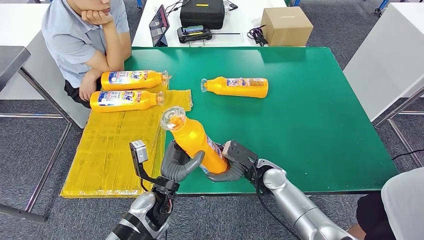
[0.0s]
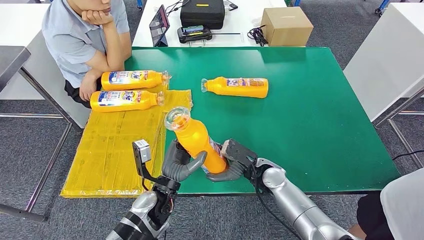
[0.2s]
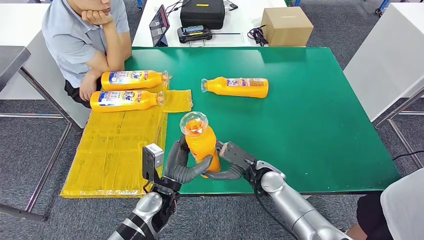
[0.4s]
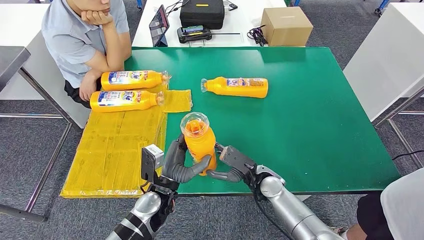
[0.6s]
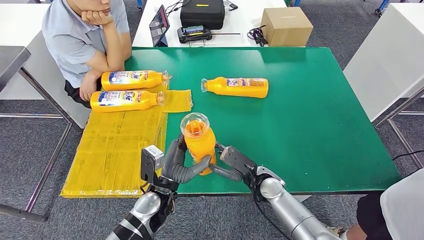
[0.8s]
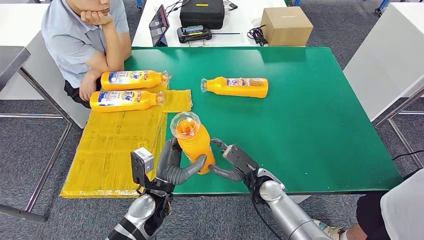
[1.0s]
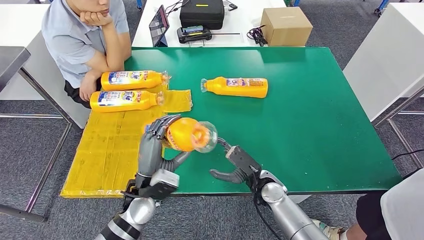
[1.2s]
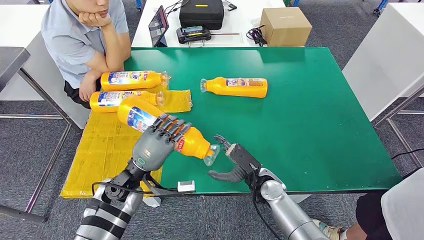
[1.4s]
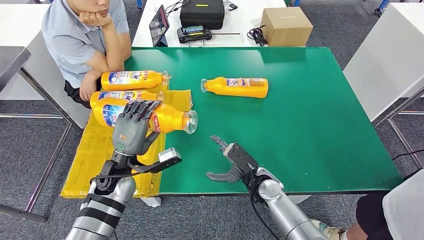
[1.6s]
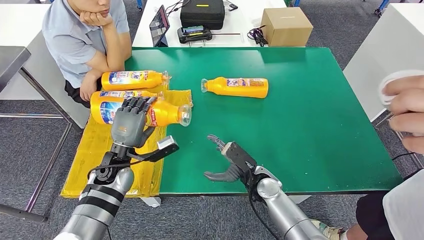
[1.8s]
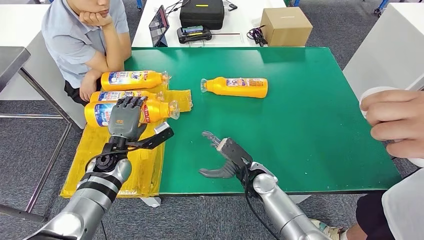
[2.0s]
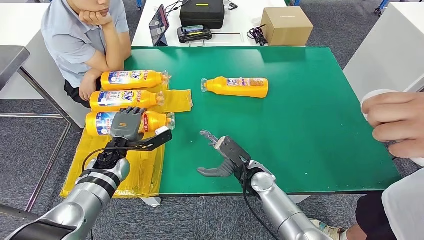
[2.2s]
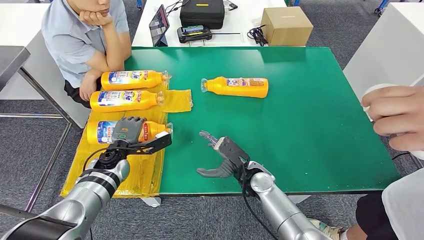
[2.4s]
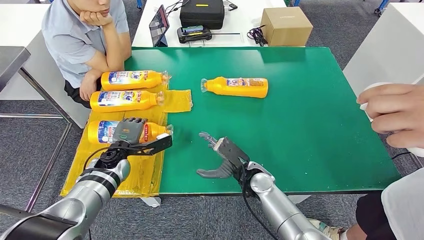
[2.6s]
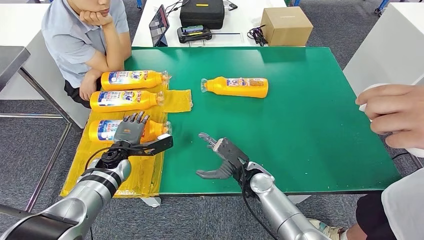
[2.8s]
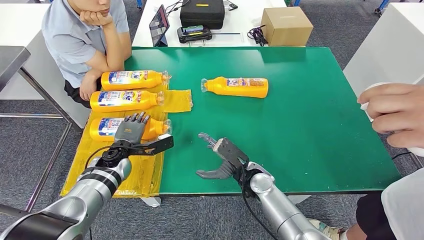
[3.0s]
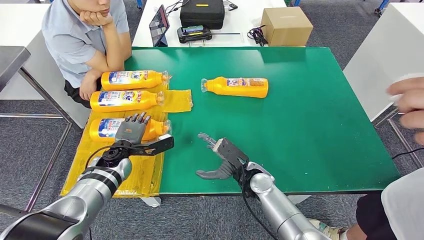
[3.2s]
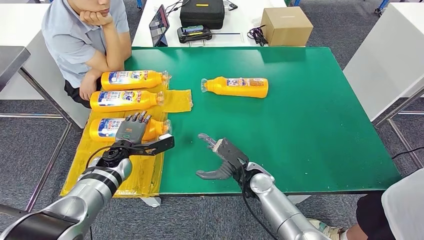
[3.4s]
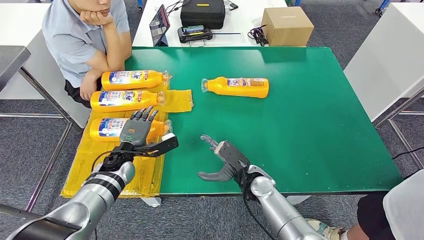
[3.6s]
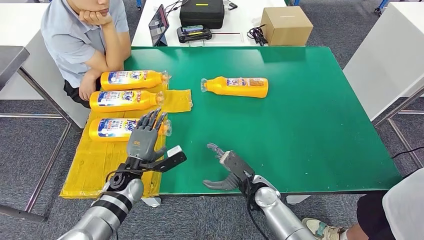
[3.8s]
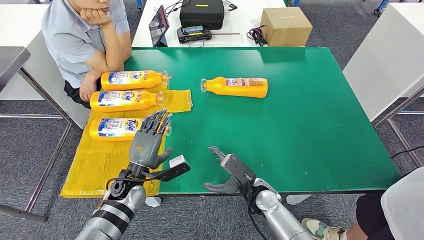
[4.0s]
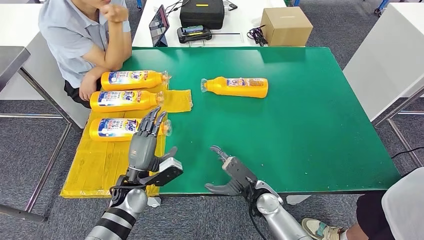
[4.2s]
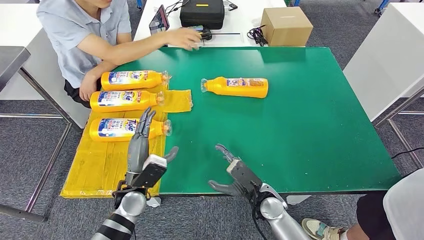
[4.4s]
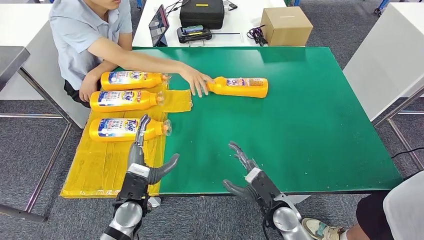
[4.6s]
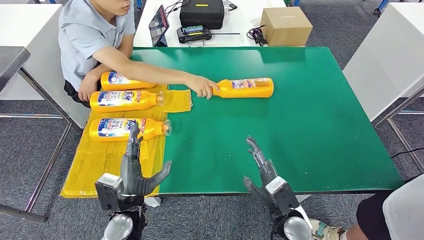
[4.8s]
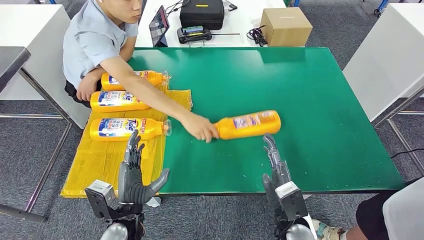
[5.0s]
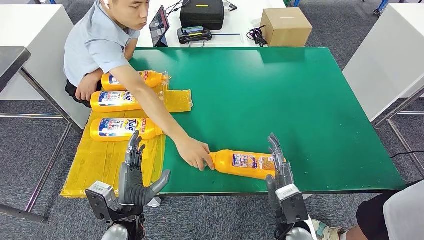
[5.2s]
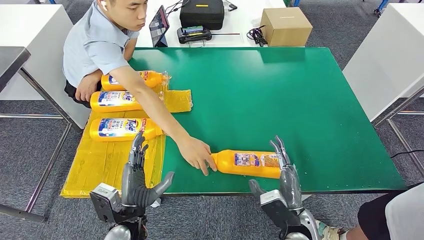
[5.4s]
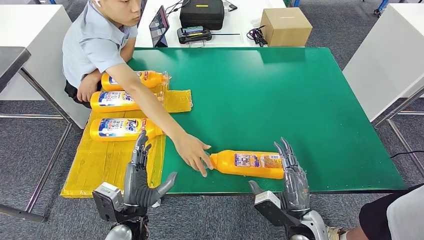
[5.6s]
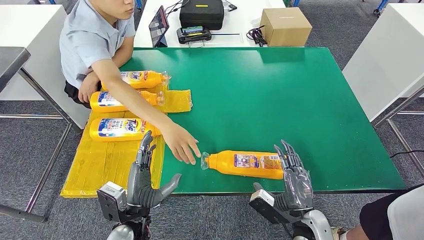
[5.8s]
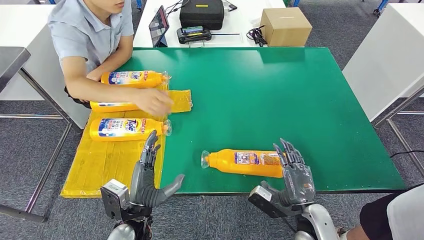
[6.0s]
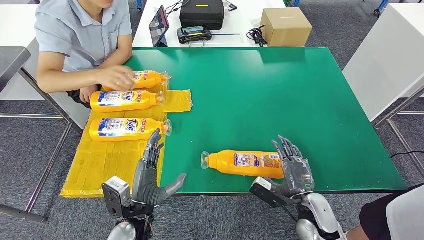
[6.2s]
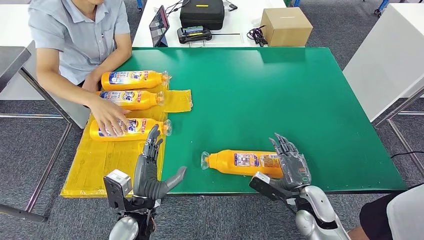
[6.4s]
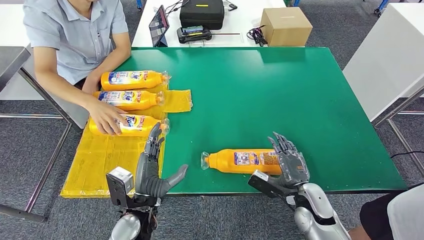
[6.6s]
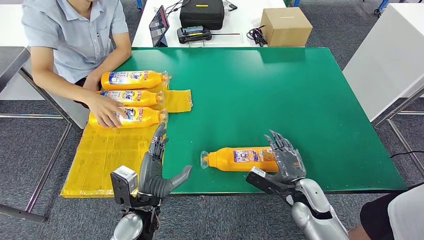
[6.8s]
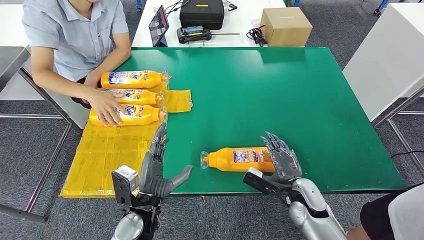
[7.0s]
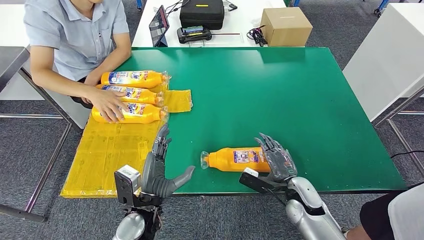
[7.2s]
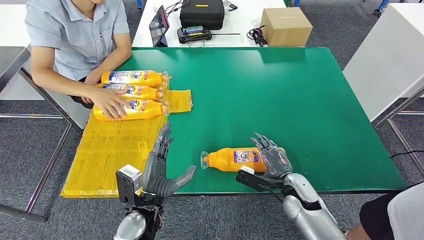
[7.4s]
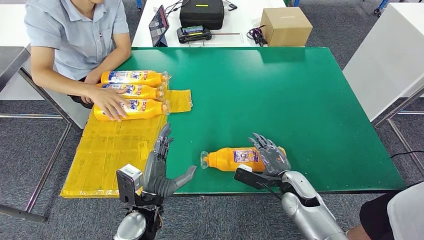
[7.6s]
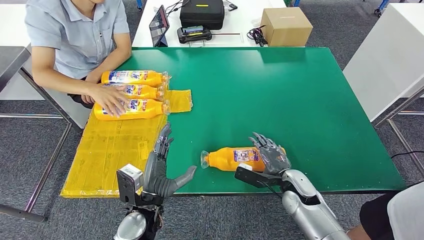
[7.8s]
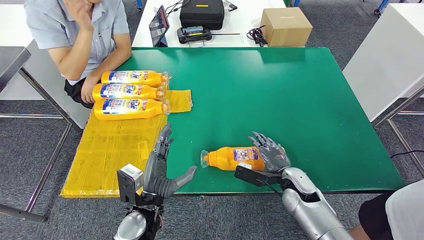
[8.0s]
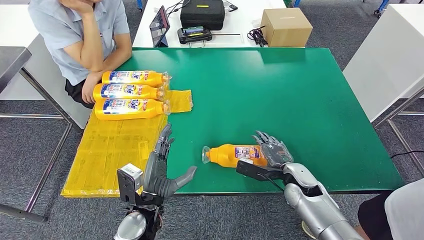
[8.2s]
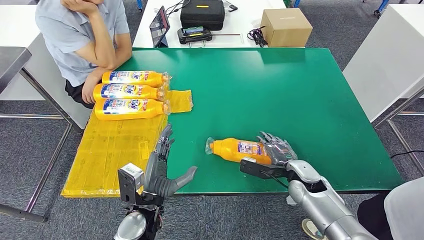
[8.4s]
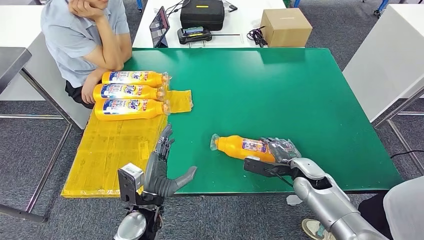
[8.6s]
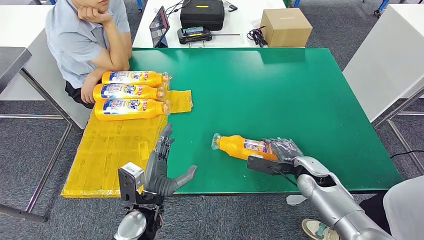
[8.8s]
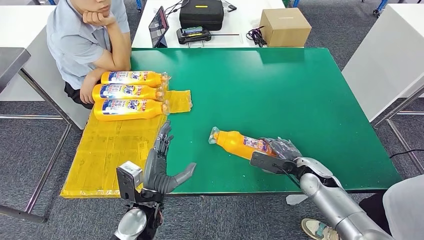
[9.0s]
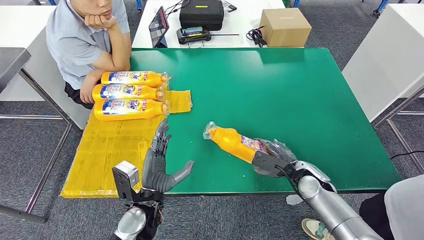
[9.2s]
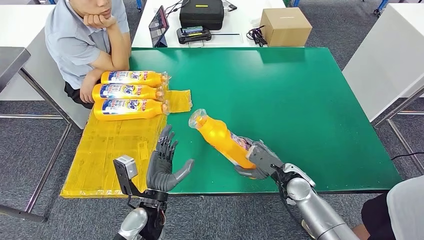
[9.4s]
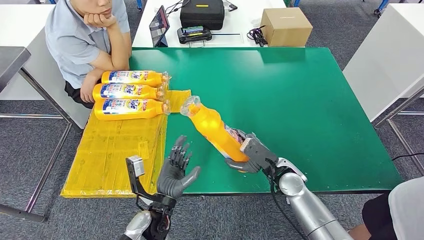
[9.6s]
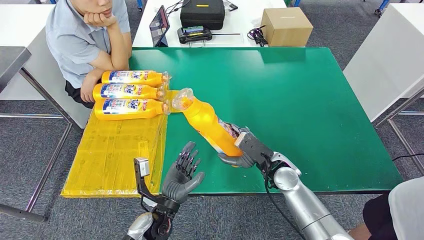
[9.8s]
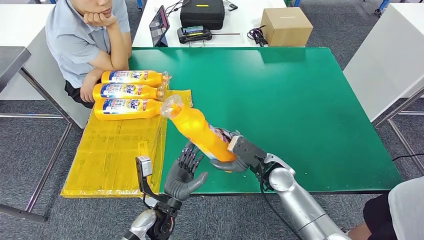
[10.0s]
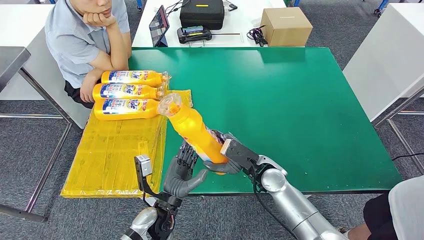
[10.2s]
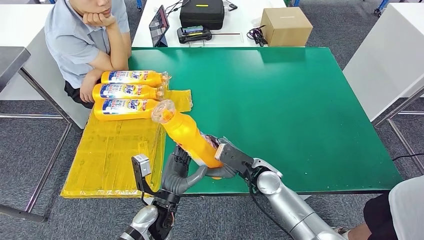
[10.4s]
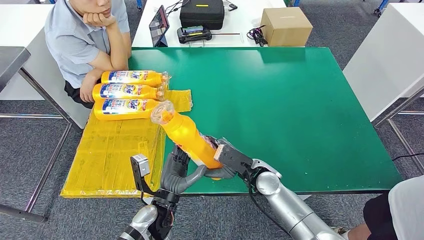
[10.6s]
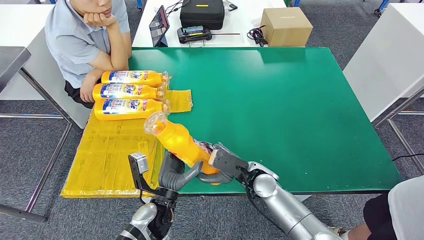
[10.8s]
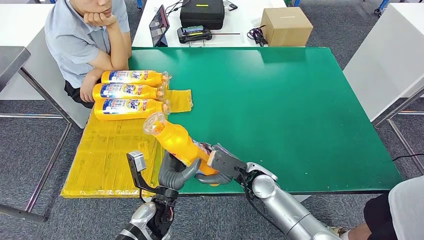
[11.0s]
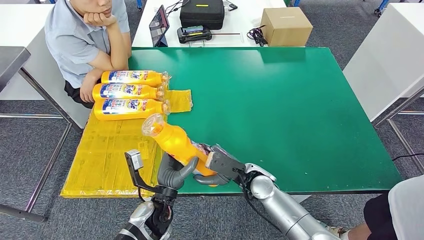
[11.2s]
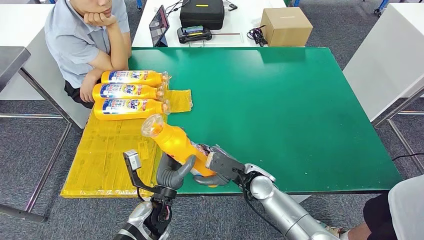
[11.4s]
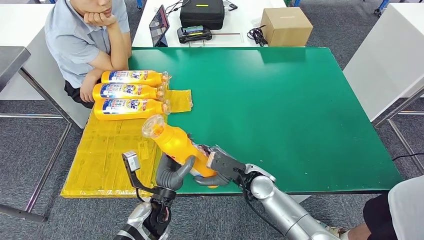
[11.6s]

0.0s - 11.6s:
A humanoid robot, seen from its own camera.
Step, 0.0s - 3.0s: Flip the bottle to face forward.
Step, 3.2s - 10.2s: Pick up the bottle from the table.
0.0s - 1.4s: The left hand travels to the left by approximately 10 cm.
1.4s - 2.8s: The left hand moves forward and to the left, some 10 cm.
2.8s - 4.4s: The left hand shifts about 10 cm backward and to the right, while the right hand shifts approximately 5 cm backward.
7.2s - 8.8s: The right hand travels forward by roughly 5 cm.
8.8s - 10.2s: The right hand shifts some 15 cm to the left.
10.2s - 11.6s: There are only small adjustments of the hands.

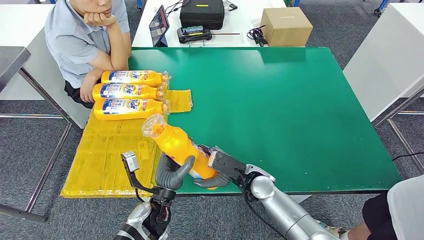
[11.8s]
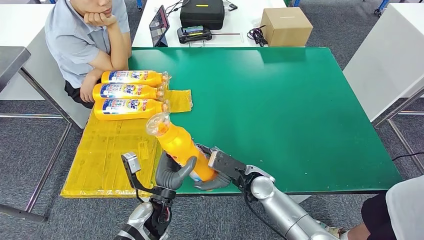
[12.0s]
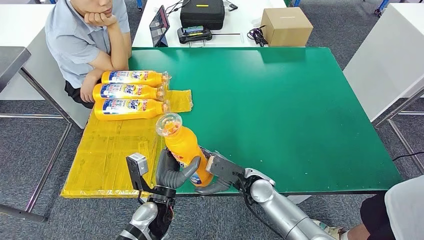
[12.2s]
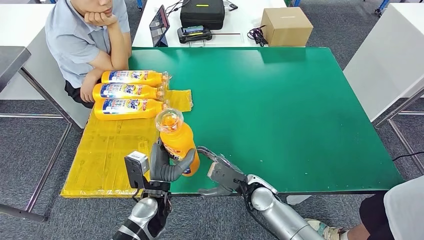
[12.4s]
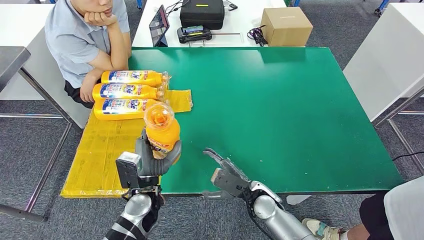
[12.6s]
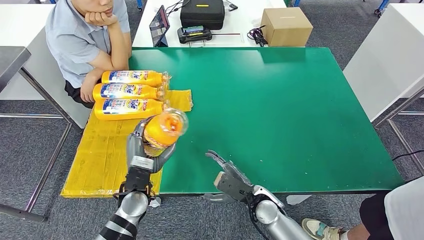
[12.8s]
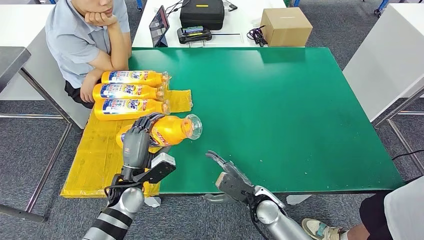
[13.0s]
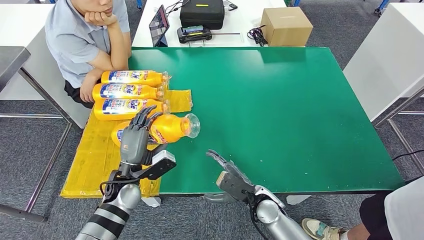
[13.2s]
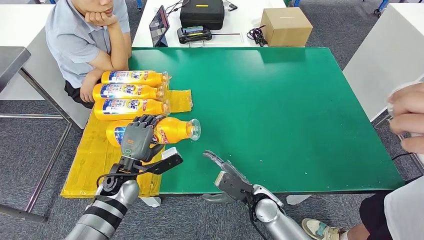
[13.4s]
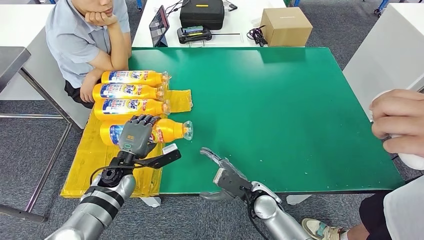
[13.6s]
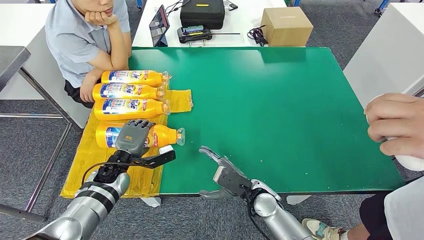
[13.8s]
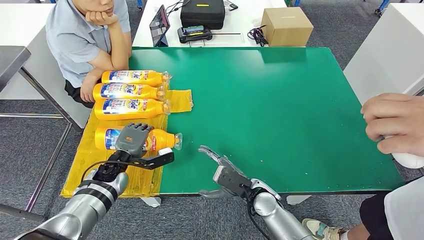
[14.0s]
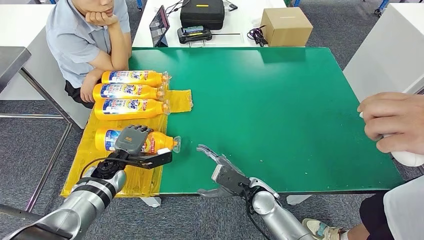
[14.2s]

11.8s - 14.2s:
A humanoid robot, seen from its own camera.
Step, 11.8s - 14.2s: Flip the bottle to face forward.
11.8s - 13.0s: The left hand heads to the left and forward, covering some 10 cm, while the right hand changes place by approximately 5 cm.
13.0s - 14.2s: The left hand heads forward and to the left, covering approximately 10 cm.

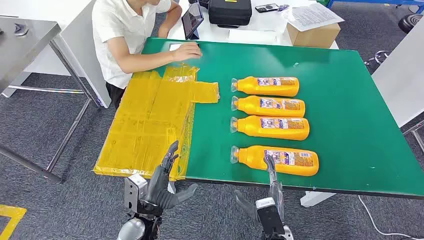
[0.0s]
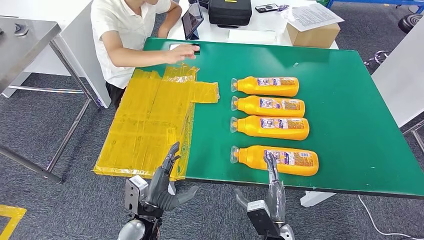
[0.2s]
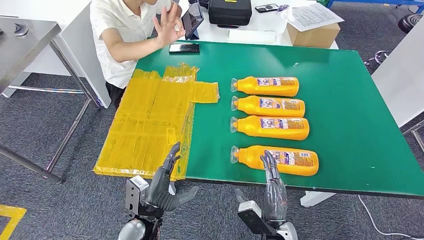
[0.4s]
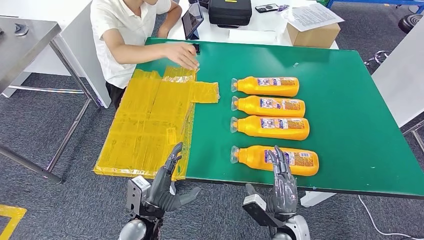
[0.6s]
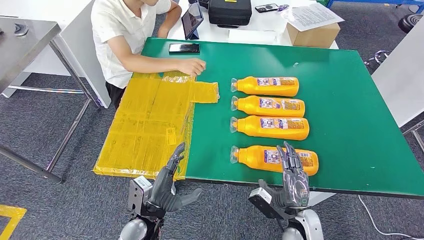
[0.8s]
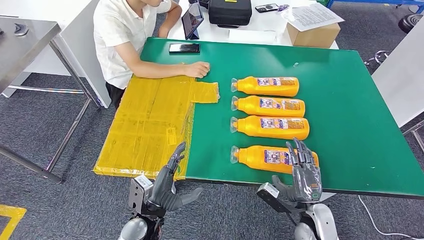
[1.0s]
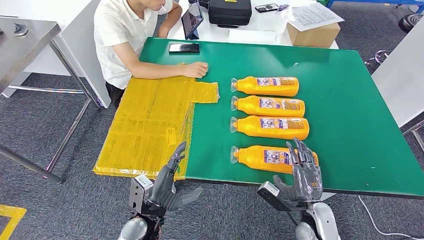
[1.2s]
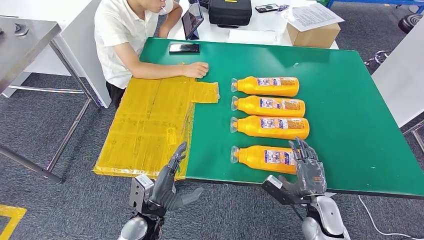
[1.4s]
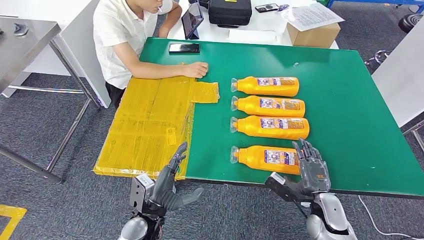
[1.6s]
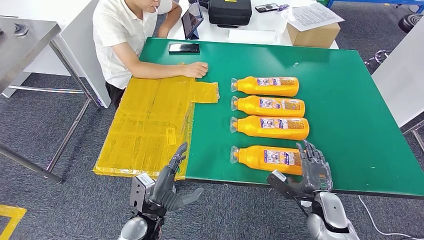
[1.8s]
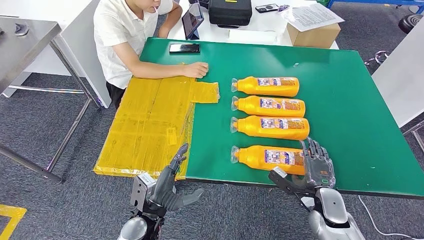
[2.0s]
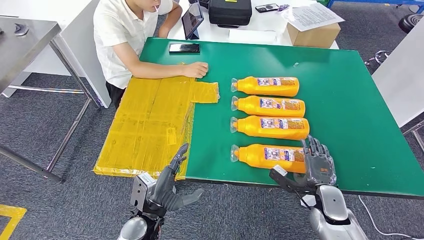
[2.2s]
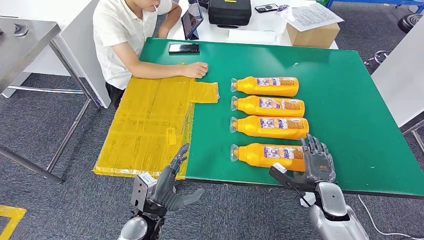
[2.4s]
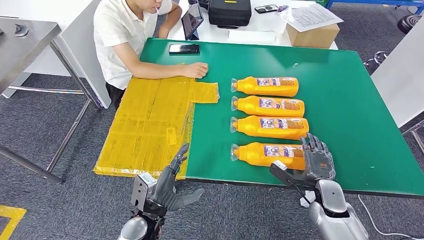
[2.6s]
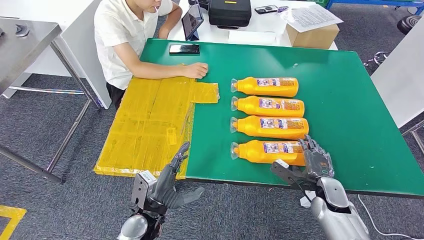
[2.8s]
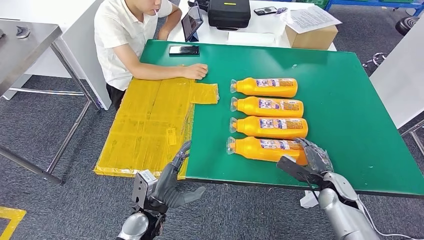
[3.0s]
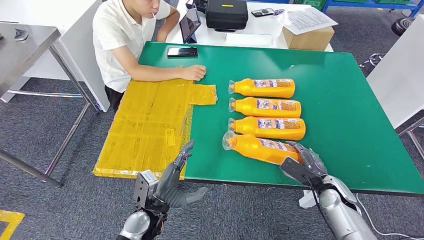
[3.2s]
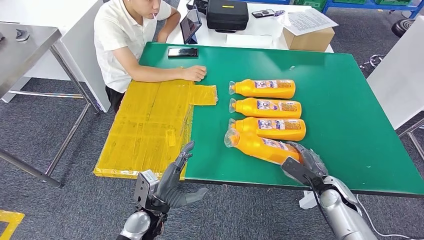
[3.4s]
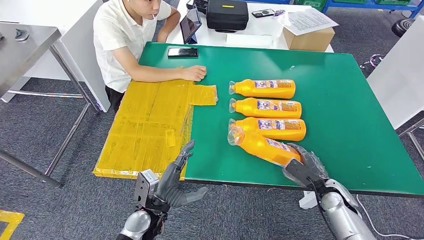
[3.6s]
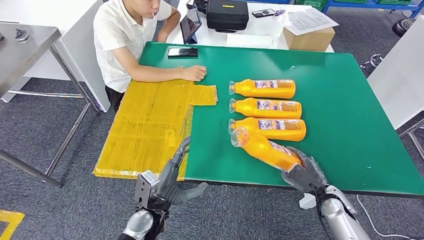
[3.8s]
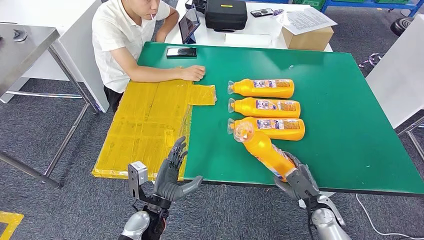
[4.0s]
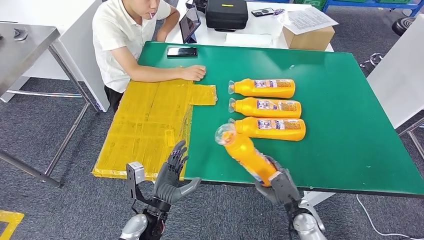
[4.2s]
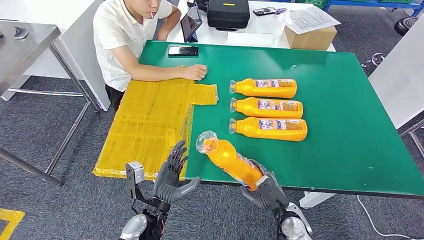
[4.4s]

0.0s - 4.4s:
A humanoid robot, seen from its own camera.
1.4s - 3.0s: The right hand goes roughly 10 cm forward and to the right.
3.0s - 4.4s: The right hand travels to the left and backward by about 15 cm.
